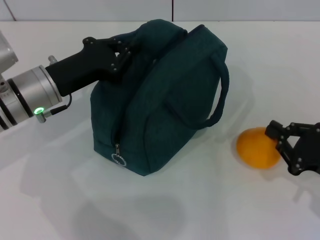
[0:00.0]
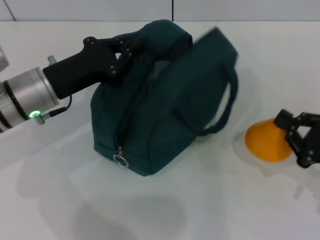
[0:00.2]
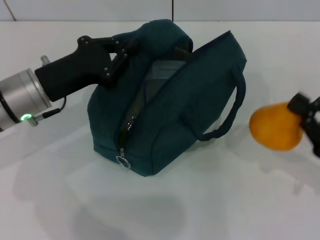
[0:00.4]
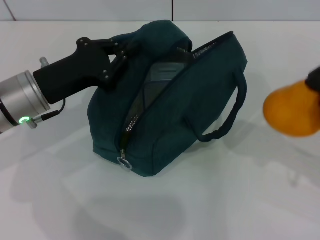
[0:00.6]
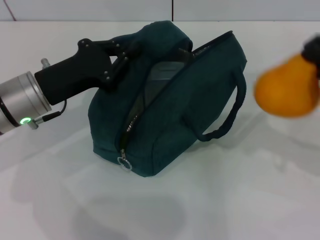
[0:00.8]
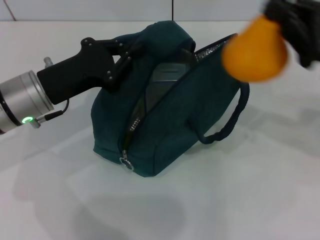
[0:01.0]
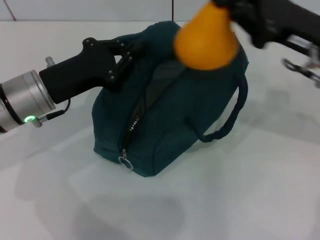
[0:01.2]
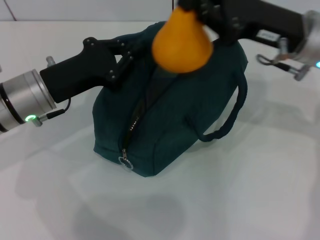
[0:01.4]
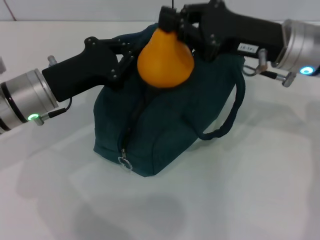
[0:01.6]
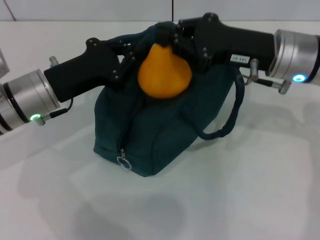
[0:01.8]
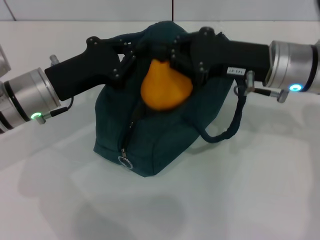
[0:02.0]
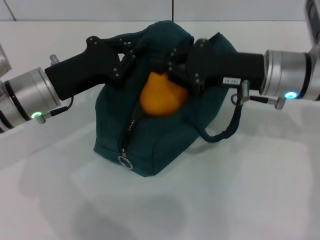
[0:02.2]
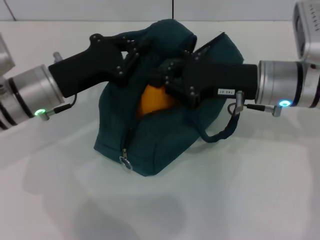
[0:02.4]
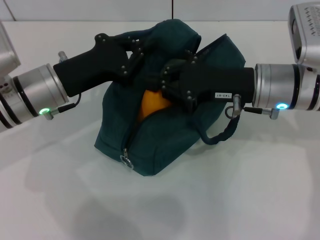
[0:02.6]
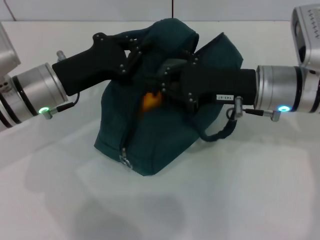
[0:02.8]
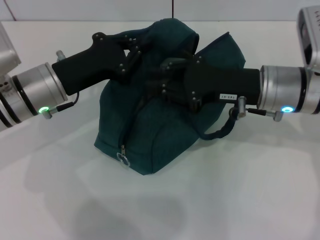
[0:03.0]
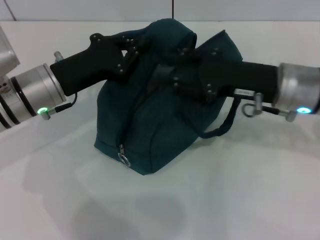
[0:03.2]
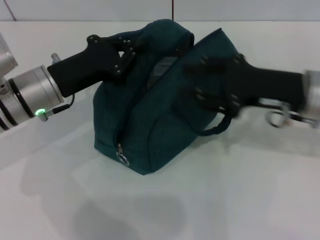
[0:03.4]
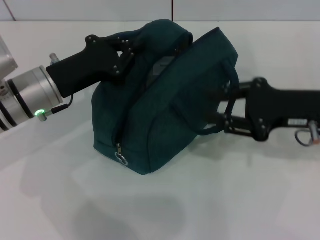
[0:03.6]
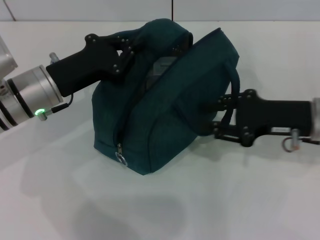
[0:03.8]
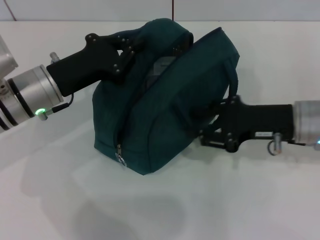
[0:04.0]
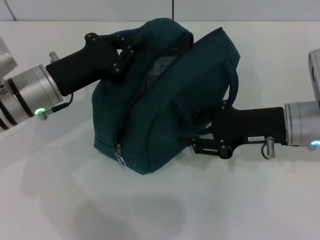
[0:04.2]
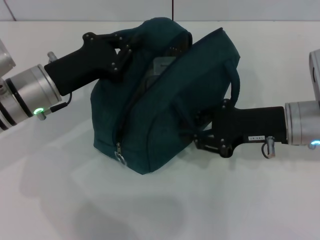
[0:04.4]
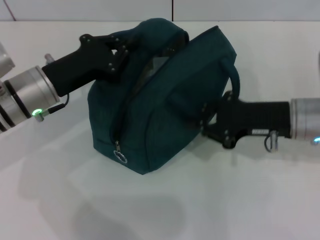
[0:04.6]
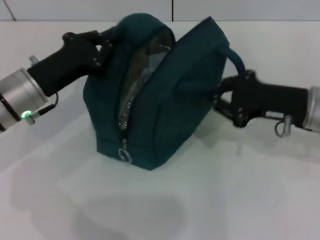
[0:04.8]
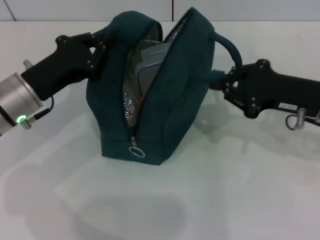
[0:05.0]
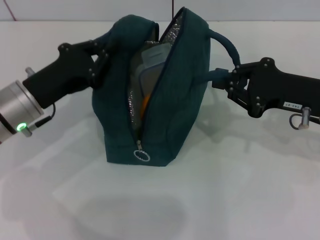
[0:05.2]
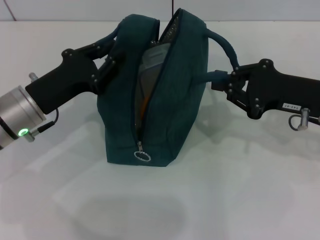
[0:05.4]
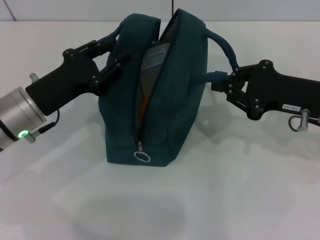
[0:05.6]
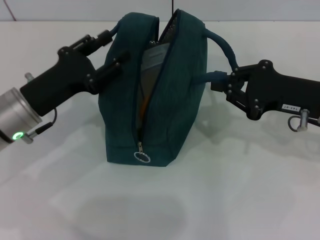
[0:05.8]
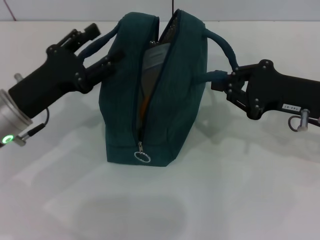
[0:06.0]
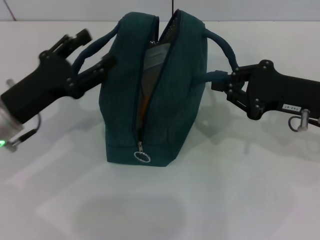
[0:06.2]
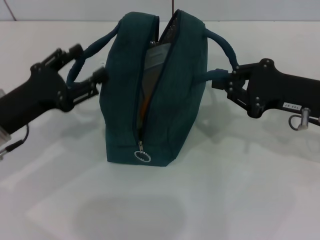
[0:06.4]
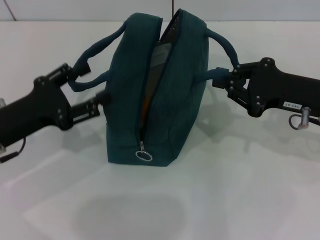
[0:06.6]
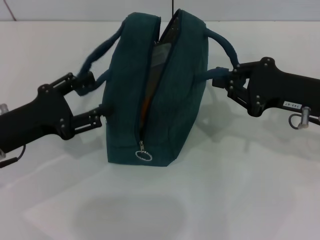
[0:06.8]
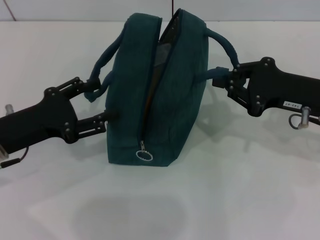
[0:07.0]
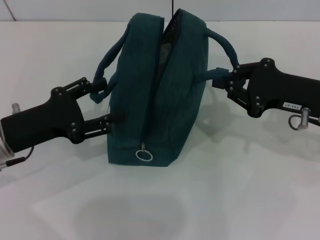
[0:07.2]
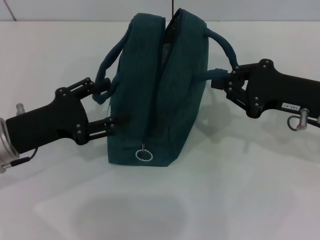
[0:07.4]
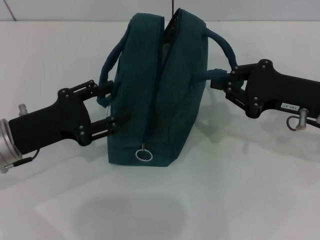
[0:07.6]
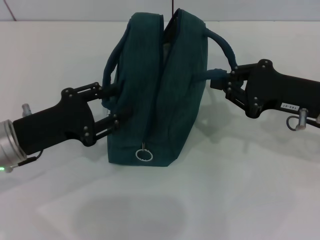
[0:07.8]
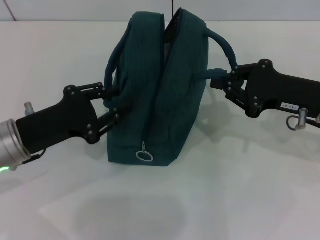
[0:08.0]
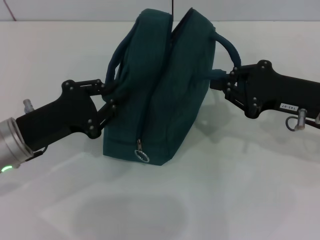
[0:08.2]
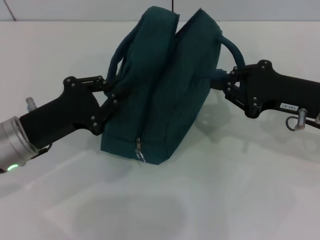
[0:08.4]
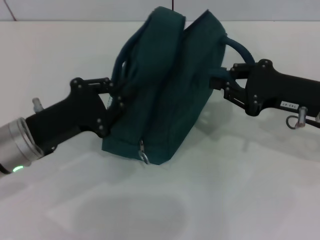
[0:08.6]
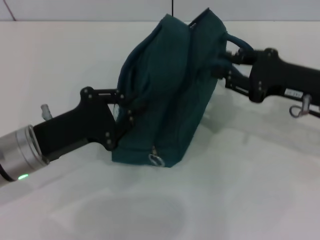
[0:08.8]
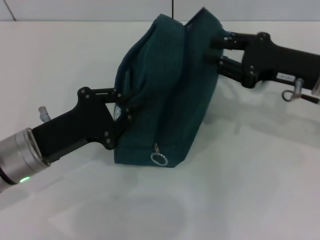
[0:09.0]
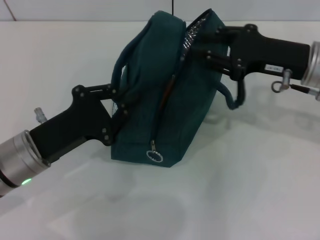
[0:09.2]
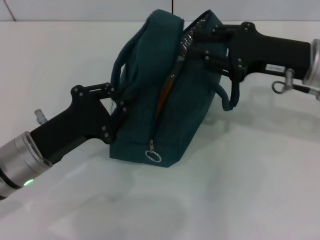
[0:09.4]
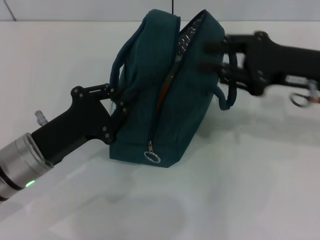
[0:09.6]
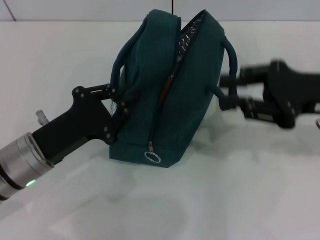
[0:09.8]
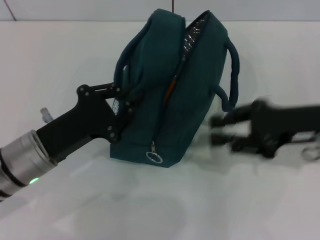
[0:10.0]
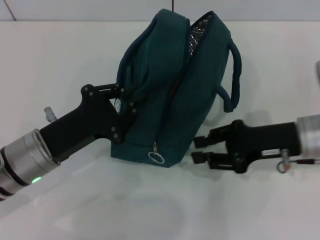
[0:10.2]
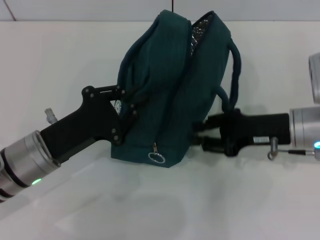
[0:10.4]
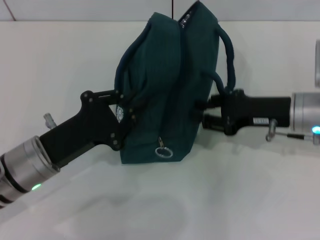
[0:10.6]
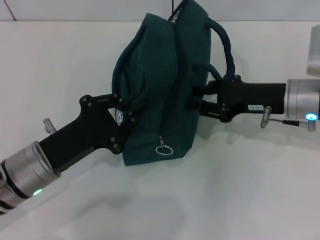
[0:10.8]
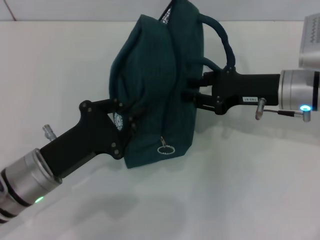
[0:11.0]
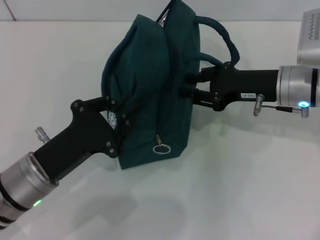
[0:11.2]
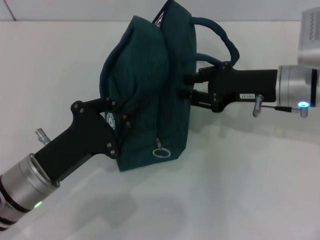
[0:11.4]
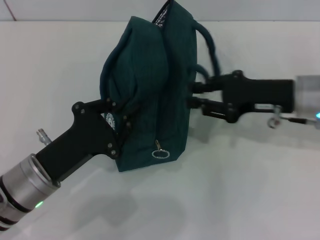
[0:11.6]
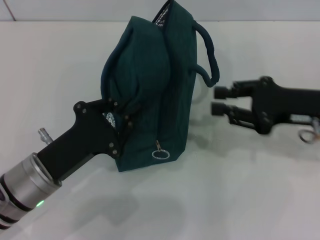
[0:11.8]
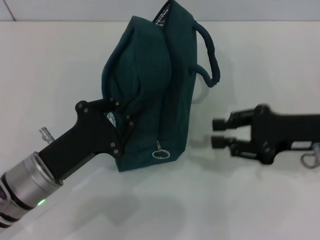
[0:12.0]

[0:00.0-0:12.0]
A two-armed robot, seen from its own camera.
Step, 0:00.0 to 0:03.0: Secure the lunch bag with your left hand.
Step, 0:03.2 to 0:05.6: Hold the lunch bag with your left hand.
Step, 0:05.8 to 0:08.8: Hold the lunch bag with your right hand.
0:00.0 to 0:01.6: The right gripper travels upward, forward and to the left by approximately 25 cm.
0:04.4 to 0:06.0: The left gripper ends up approximately 5 cm from where it was, and opens its fingers.
0:06.0 to 0:07.6: The grippers stay close to where they were, moving slightly.
0:07.6 to 0:09.0: The left gripper closes.
0:09.0 to 0:10.4: The right gripper heads downward, covering some 5 cm.

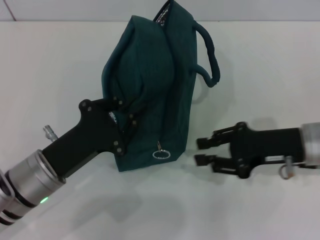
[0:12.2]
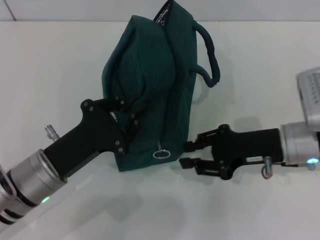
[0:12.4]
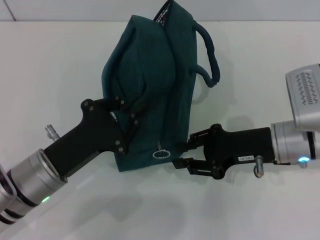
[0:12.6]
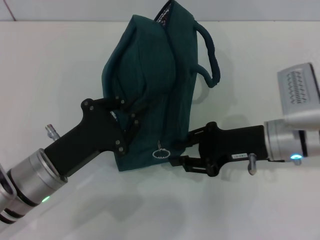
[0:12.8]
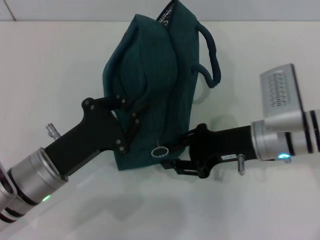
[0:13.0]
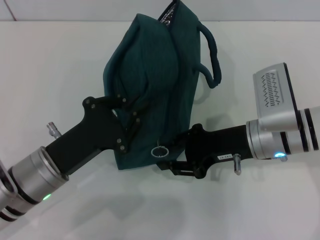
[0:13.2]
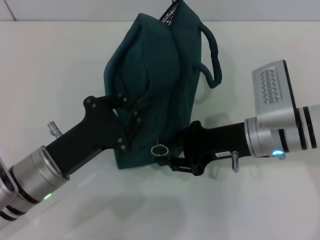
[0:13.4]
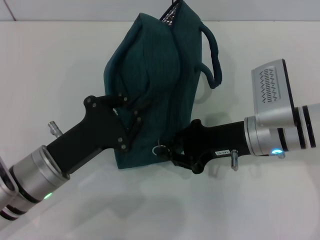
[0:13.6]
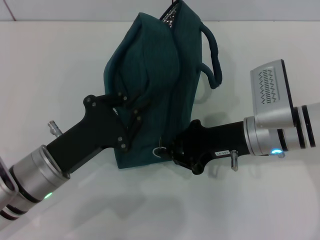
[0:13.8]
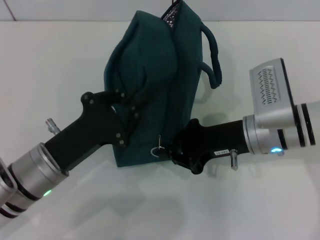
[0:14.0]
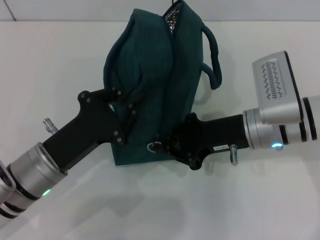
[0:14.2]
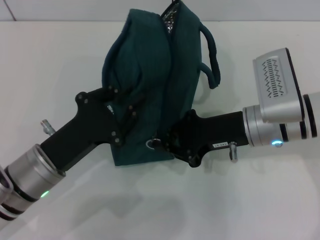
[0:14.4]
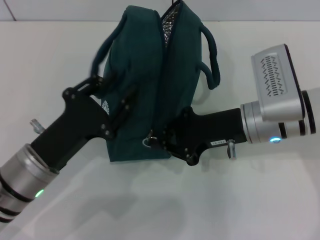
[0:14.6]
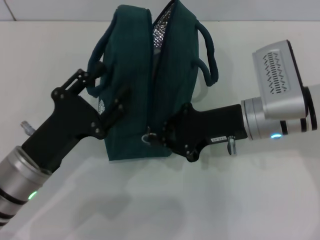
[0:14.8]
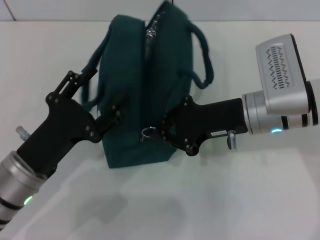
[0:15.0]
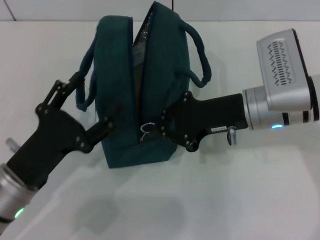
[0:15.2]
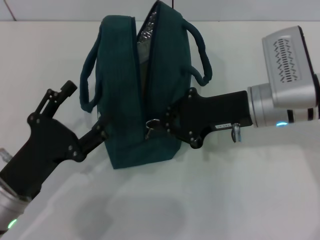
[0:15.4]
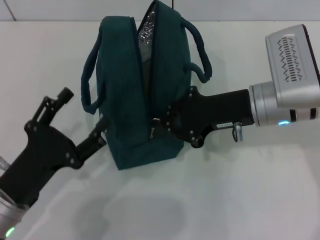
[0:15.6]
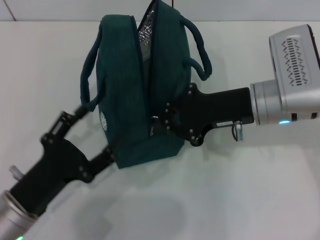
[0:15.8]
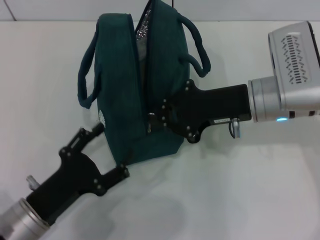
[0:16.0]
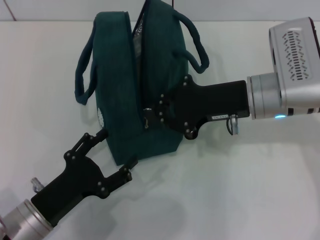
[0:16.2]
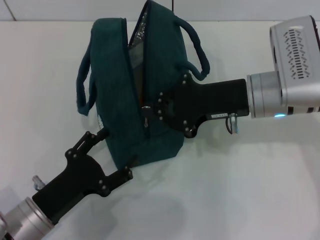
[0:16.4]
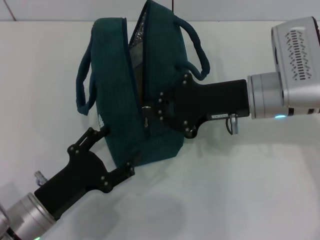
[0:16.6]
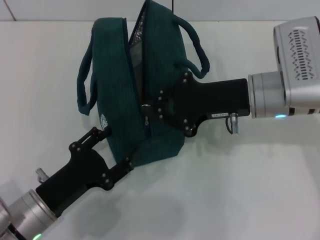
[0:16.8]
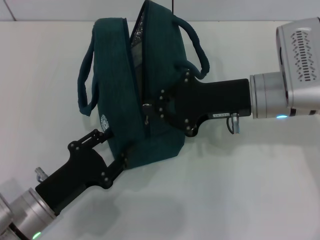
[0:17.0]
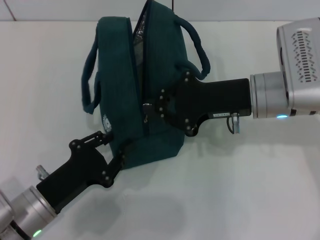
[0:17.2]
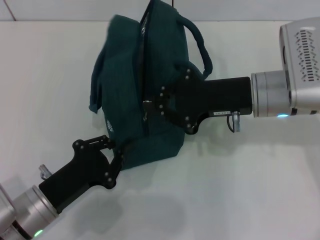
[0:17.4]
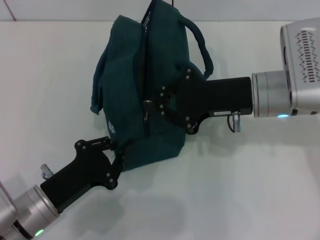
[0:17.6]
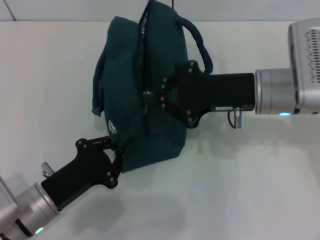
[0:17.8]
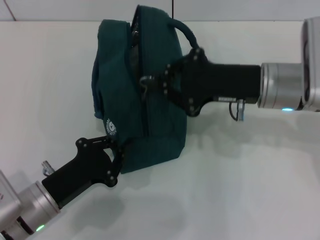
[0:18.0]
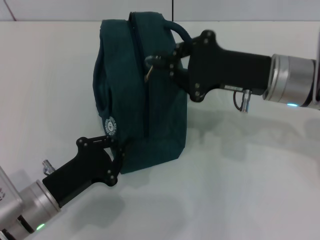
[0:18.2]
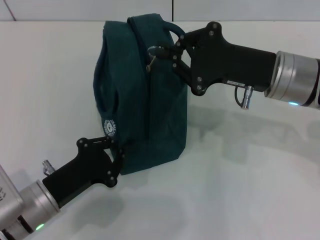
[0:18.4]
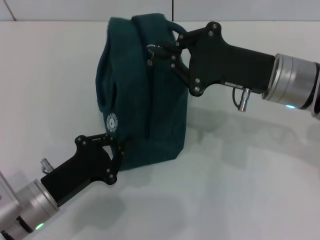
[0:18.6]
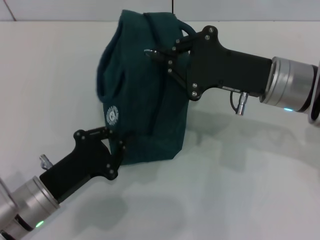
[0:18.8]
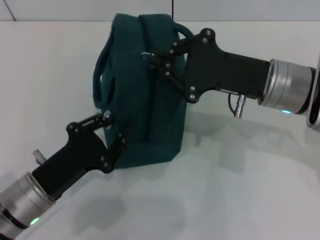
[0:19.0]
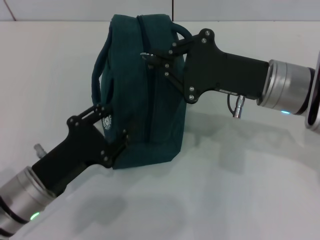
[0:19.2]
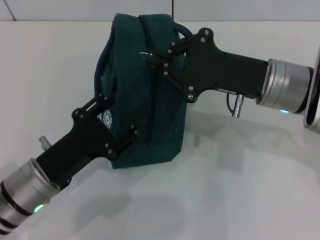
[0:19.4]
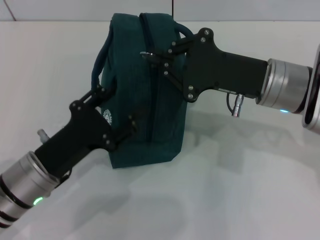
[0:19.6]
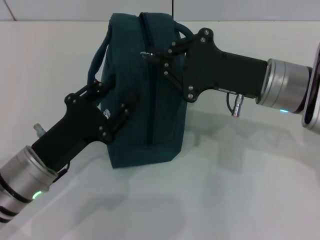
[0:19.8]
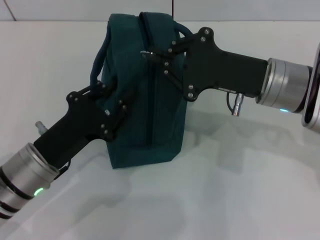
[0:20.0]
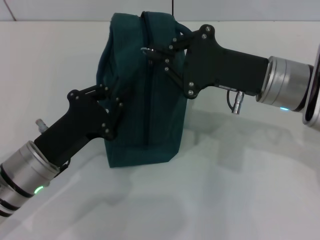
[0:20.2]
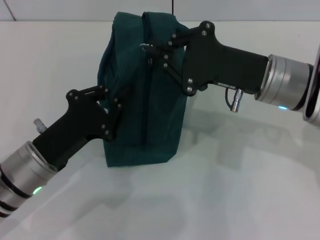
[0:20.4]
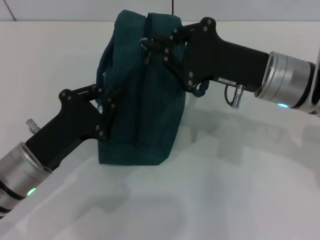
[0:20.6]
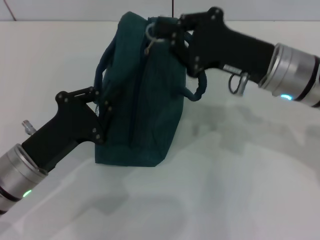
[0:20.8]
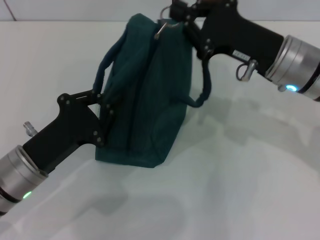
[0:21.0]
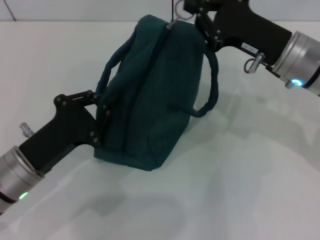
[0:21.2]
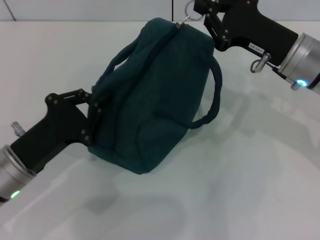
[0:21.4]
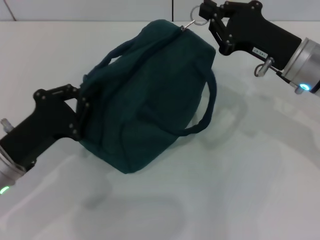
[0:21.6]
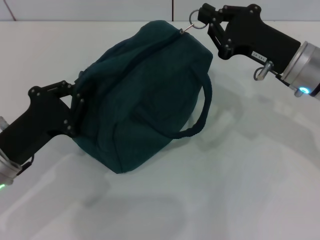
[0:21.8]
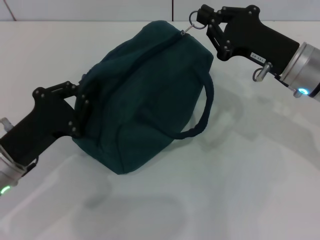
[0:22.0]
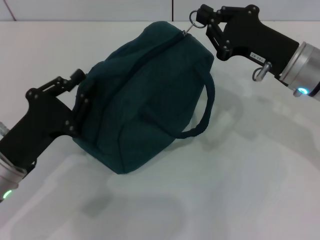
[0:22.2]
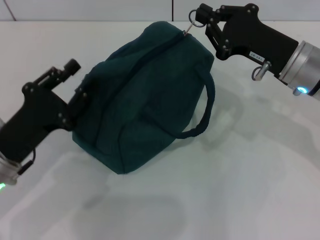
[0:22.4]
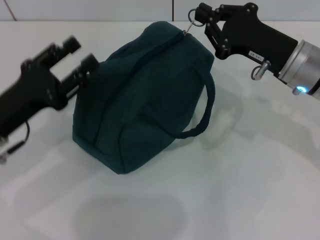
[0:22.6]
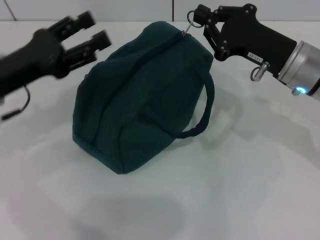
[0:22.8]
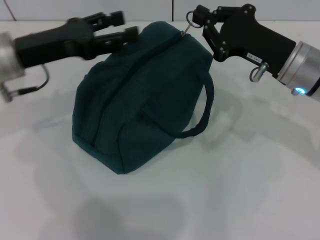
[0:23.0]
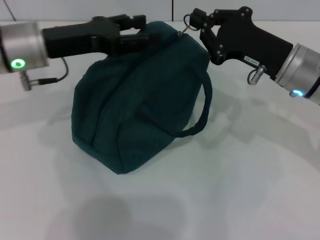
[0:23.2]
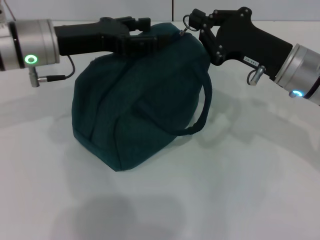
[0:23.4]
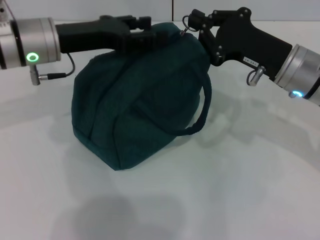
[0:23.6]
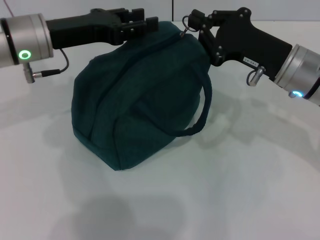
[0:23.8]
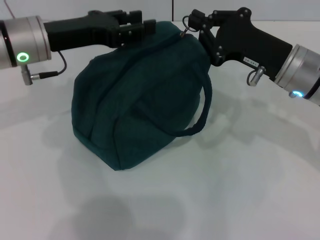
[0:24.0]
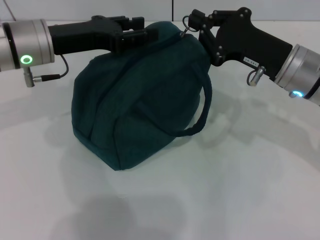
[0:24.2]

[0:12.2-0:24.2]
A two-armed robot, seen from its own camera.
0:12.2 to 0:13.8: The right gripper heads to the left, covering some 5 cm.
0:13.8 to 0:15.2: The left gripper opens its fingers.
0:16.6 to 0:18.2: The left gripper closes.
0:18.2 to 0:19.8: The left gripper opens.
0:19.8 to 0:21.2: The left gripper closes.
0:21.2 to 0:22.6: The left gripper changes place by about 5 cm, and opens up.
0:22.6 to 0:24.2: The left gripper is displaced forward, upward and to the right by roughly 15 cm.
